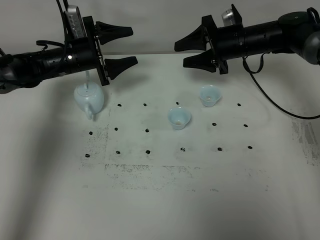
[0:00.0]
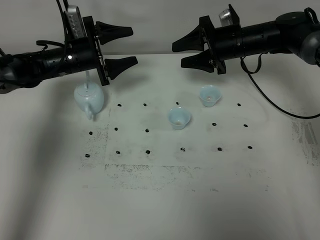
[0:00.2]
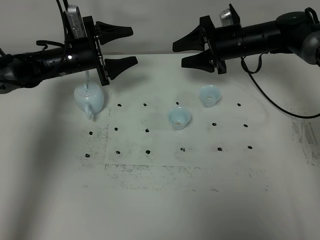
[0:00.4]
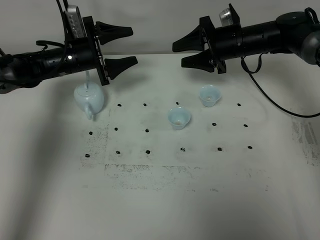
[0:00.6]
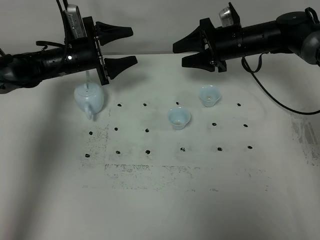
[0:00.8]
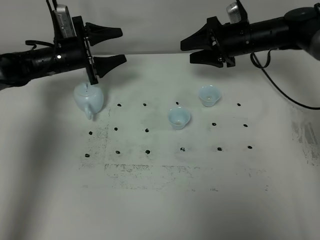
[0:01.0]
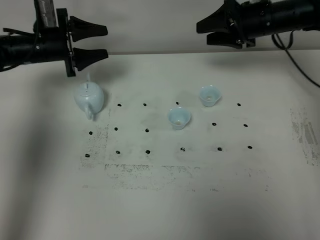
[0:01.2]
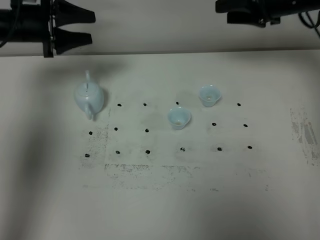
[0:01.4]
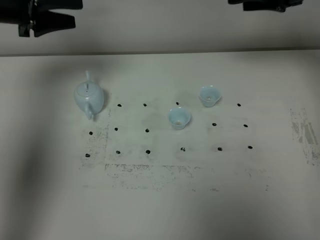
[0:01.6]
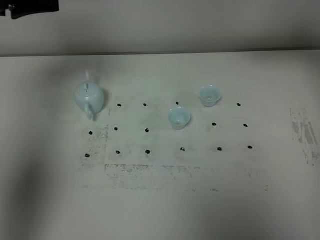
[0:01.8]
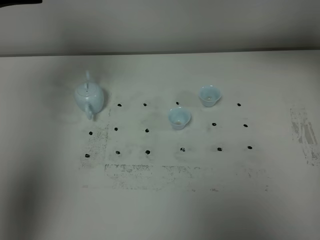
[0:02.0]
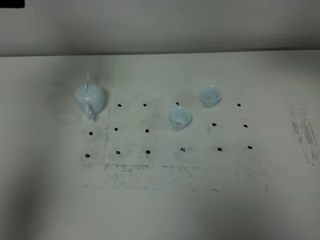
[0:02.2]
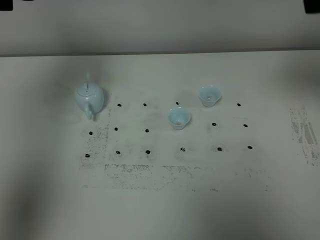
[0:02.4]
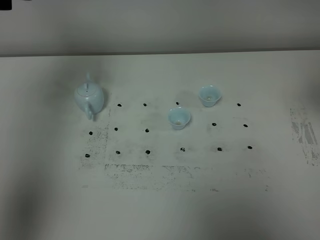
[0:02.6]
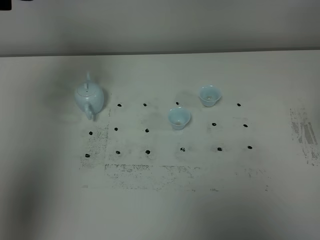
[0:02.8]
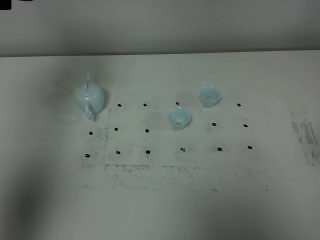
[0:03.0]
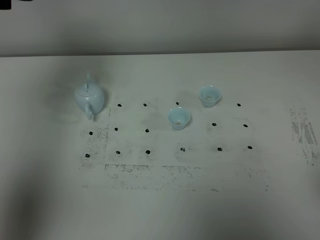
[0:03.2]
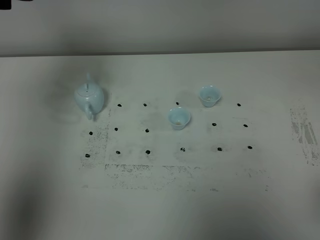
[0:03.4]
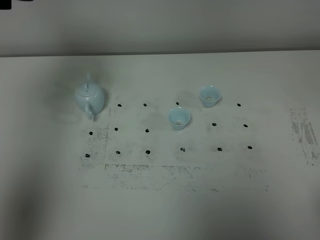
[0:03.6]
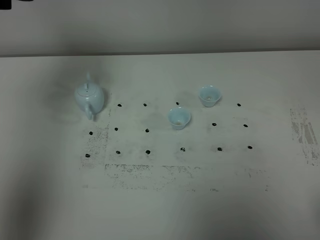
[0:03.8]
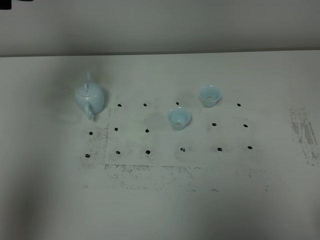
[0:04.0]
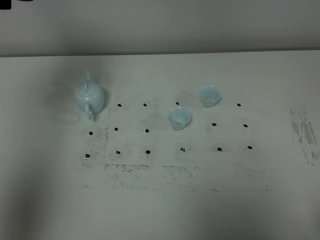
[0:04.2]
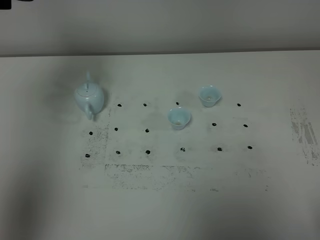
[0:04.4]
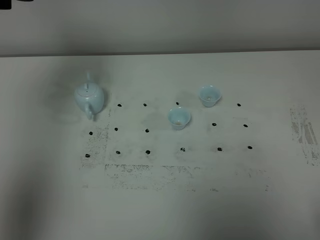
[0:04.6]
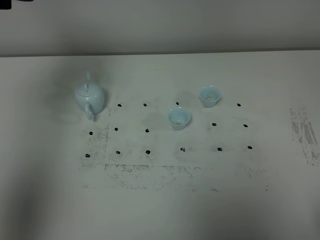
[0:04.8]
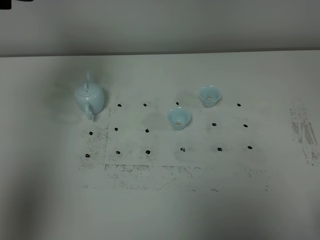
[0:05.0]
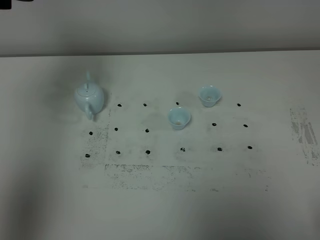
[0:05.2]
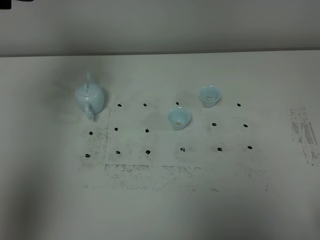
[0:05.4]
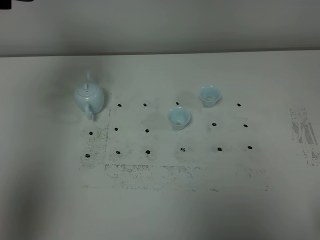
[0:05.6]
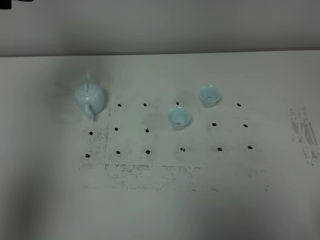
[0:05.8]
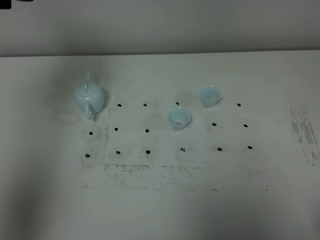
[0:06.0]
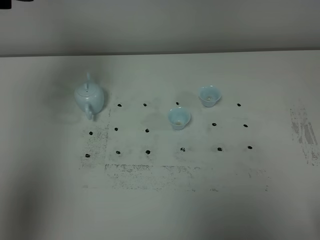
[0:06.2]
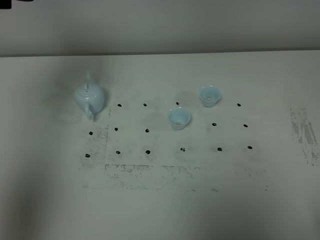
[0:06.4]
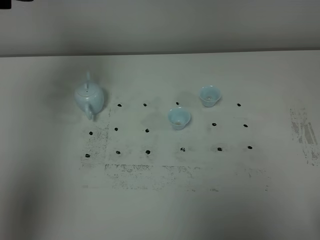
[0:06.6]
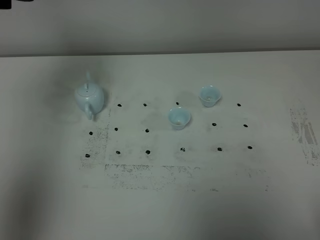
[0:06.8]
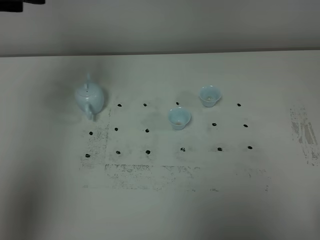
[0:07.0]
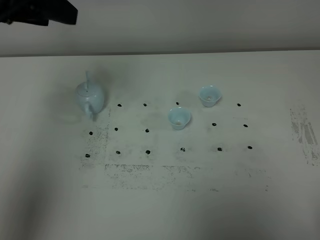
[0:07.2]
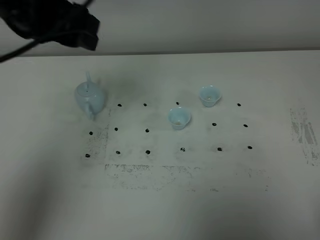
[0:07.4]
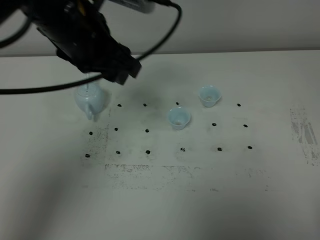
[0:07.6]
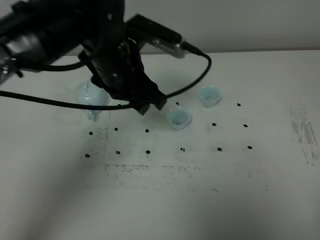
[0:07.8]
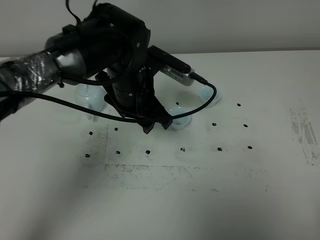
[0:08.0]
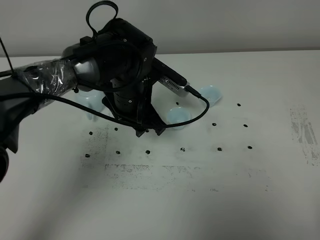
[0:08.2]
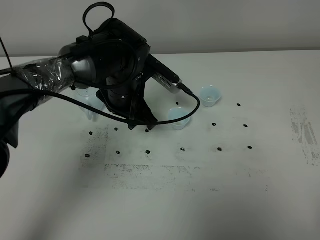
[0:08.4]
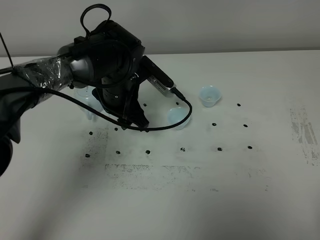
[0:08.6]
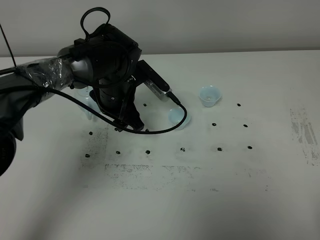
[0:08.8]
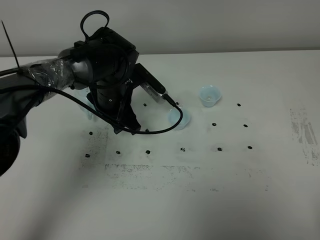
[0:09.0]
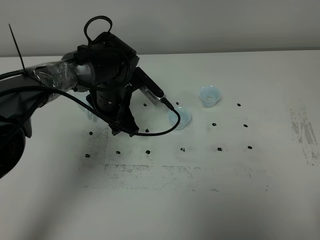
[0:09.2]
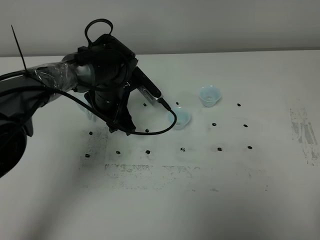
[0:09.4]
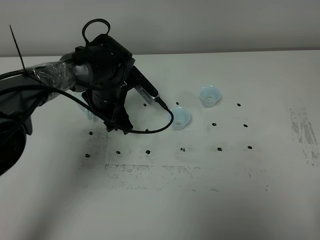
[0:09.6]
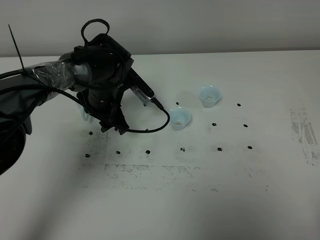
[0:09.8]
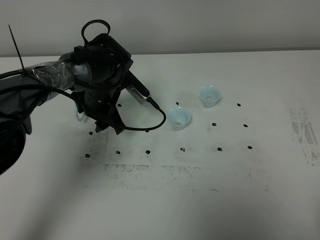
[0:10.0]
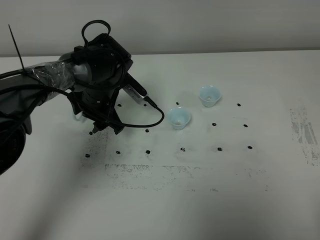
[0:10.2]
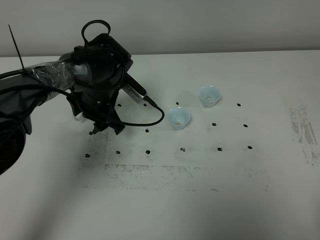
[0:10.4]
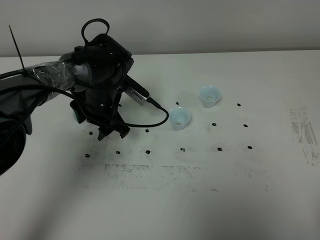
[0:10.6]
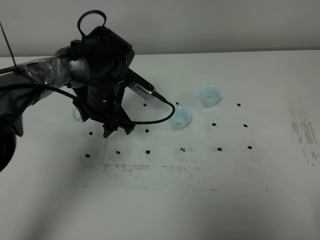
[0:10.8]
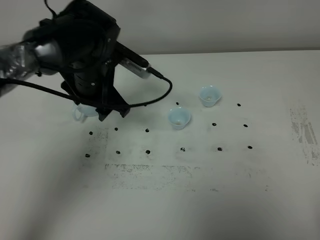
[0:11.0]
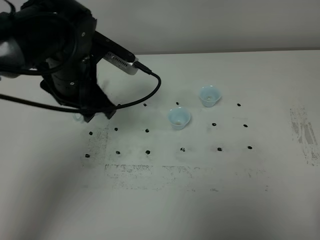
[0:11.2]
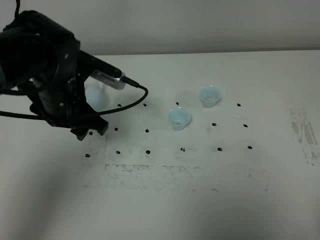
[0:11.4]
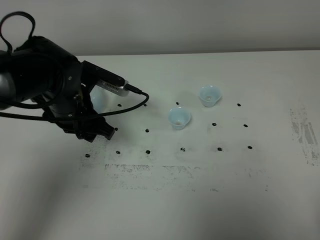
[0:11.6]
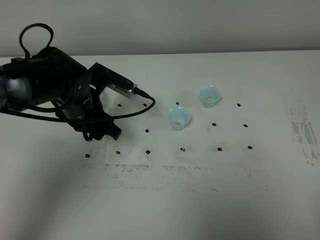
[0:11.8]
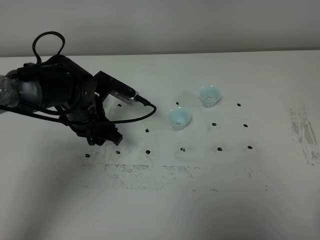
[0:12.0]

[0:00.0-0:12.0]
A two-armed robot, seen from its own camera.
Task of the whole recording: grasp the blue porcelain teapot and pour the tea into the two blue porcelain teacups one by one, put the blue porcelain teapot back in its original place.
0:00.0 to 0:01.6: The left gripper is displaced upward by roughly 20 cm; the right gripper travels upward and to the right by roughly 20 cm.
0:01.6 to 0:03.0: The right gripper goes roughly 35 cm backward. Meanwhile the left gripper goes about 15 cm upward and backward.
0:04.4 to 0:06.0: Neither gripper changes place.
0:06.0 to 0:07.6: The right gripper closes its fingers; the left gripper shifts roughly 20 cm to the right and downward.
0:07.6 to 0:09.0: The left gripper heads downward and forward, covering roughly 20 cm.
0:09.0 to 0:10.4: The grippers stay close to where they were, moving slightly.
0:10.4 to 0:12.0: The left gripper travels backward by roughly 5 cm, and travels upward and back again, approximately 10 cm each way.

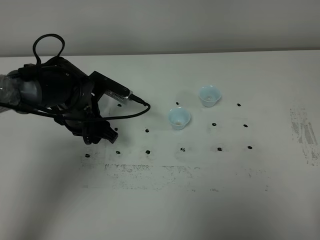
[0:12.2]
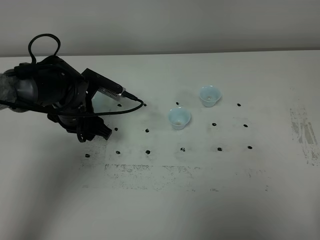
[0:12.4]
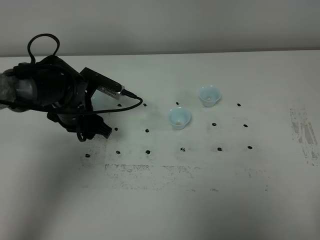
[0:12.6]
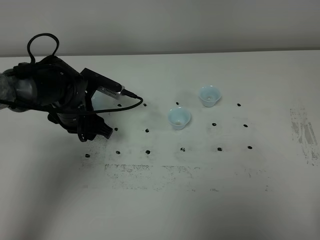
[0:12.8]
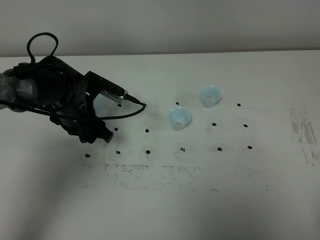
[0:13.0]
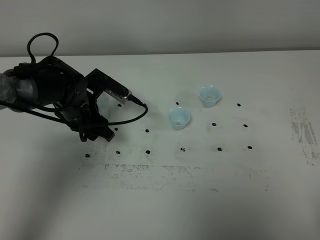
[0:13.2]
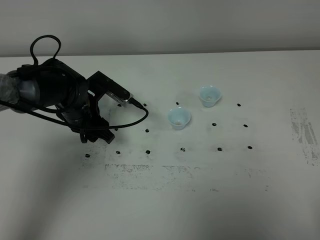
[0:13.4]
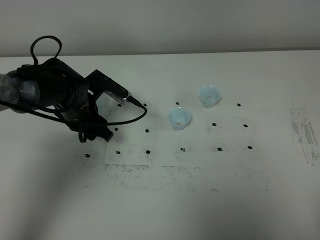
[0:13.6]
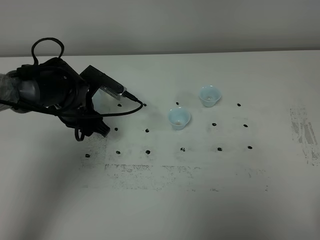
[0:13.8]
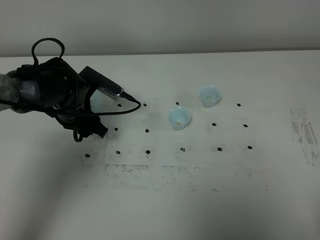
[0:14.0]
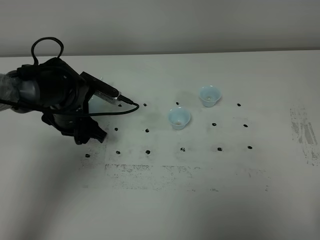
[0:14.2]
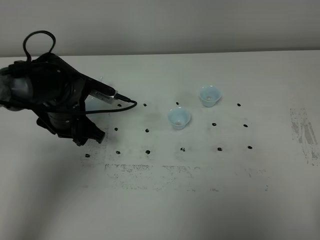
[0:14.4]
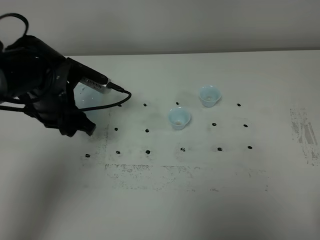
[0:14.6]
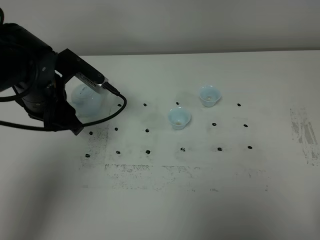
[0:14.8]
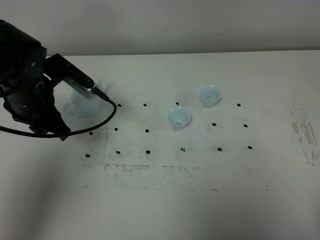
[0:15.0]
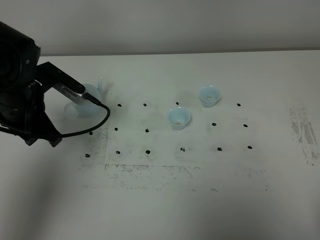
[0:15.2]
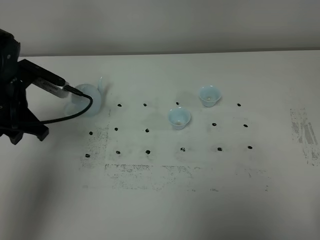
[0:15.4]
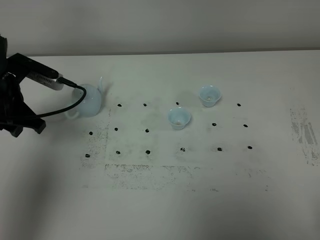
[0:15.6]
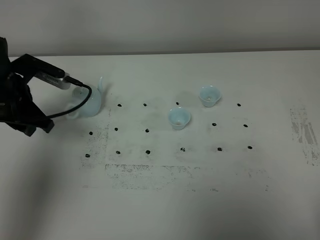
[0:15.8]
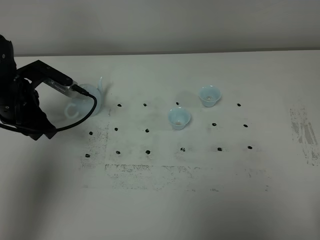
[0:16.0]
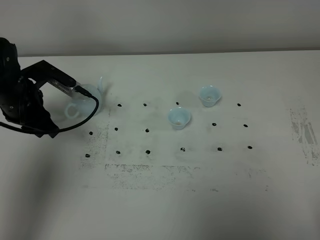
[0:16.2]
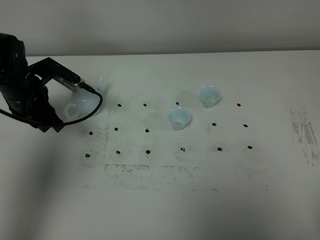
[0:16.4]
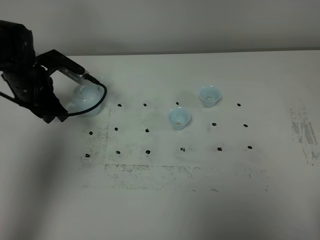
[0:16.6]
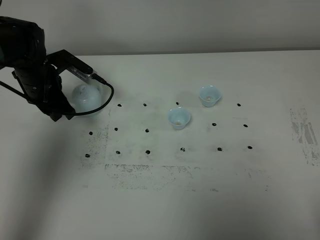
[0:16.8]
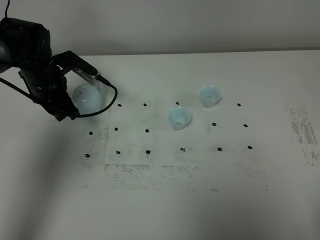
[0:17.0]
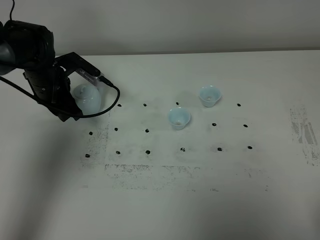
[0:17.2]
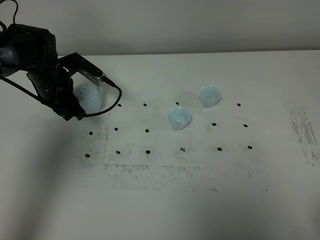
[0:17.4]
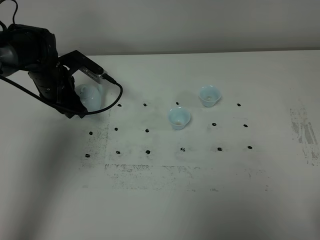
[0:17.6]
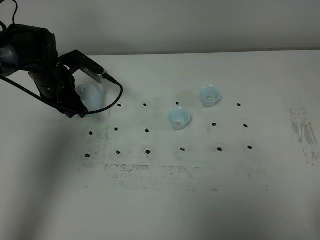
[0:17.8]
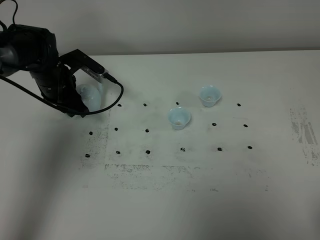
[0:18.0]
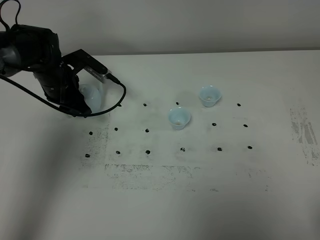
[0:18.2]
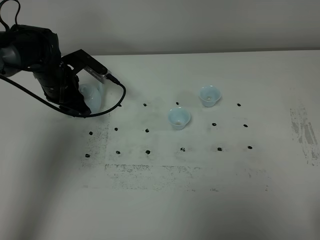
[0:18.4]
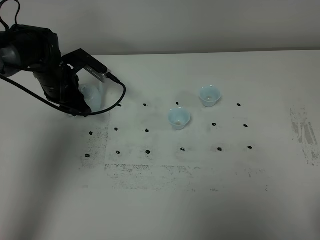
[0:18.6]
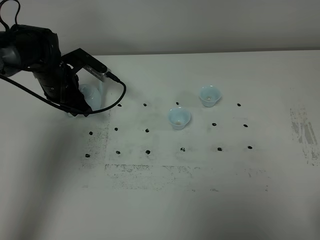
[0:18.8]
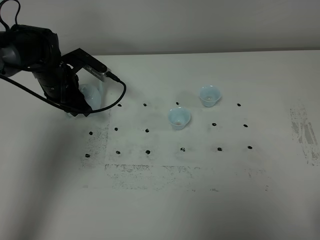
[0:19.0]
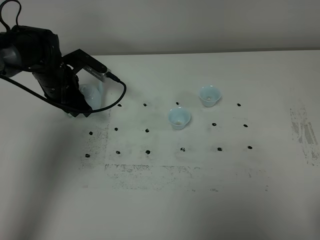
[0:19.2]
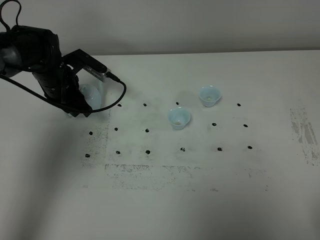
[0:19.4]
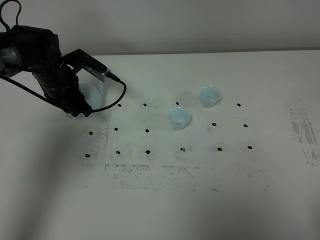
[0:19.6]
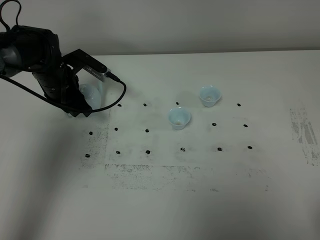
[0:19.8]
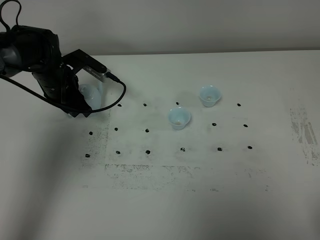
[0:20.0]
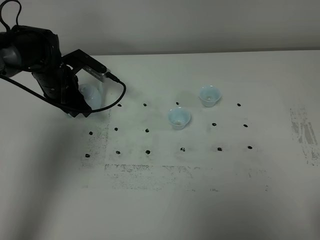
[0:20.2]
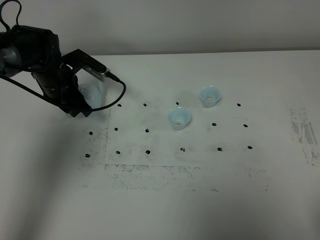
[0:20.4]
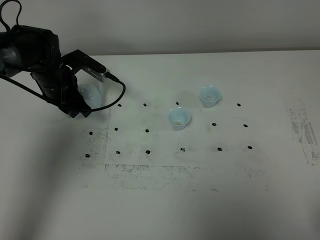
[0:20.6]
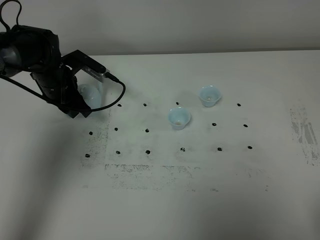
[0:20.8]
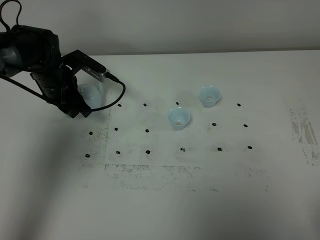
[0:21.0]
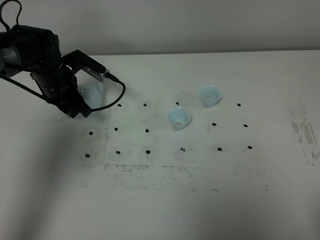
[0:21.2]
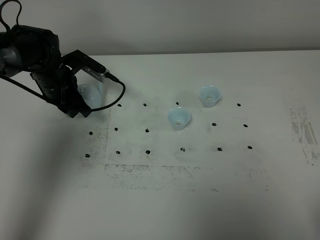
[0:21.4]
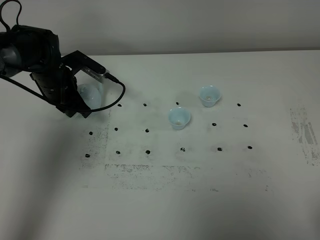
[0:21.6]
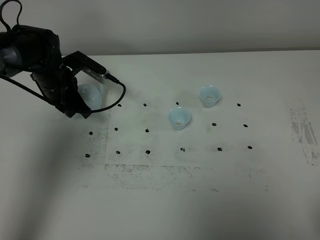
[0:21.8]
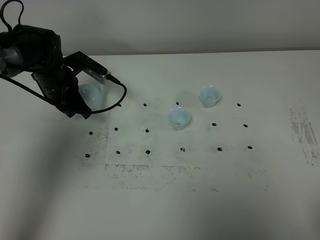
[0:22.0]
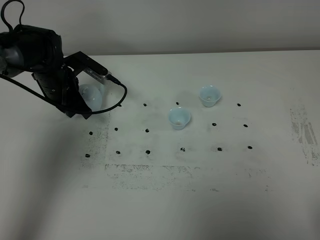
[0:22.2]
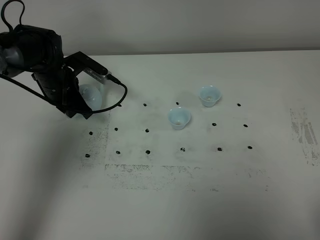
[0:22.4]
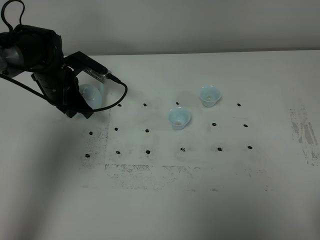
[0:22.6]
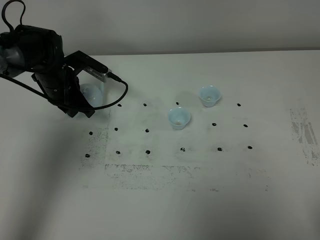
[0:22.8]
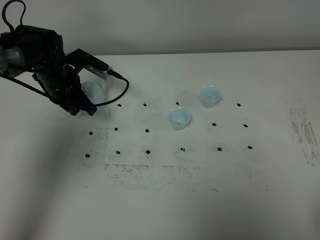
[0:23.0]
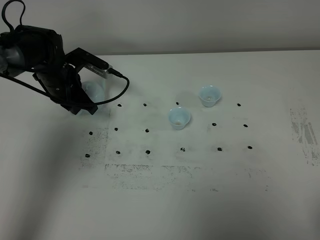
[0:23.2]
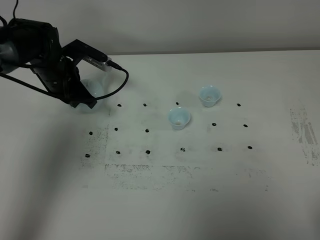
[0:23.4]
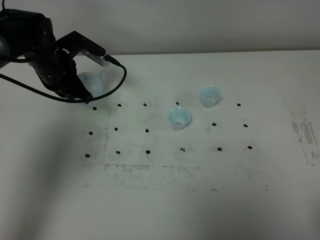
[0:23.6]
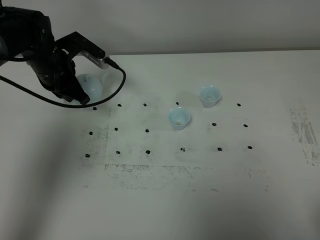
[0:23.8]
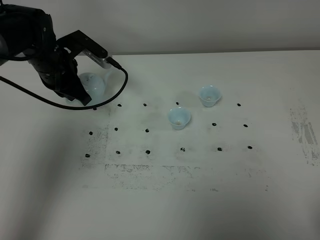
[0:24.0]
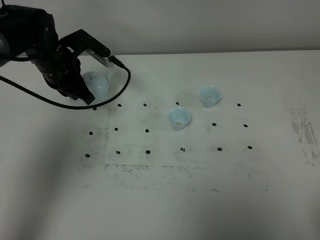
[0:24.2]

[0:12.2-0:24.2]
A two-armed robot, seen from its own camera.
Task of the whole recording: grasp the blue porcelain teapot and pour the tea into the two blue porcelain teacups one by one, put the blue porcelain teapot back in its original place.
Step, 0:12.2 to 0:23.6: Pick up the teapot with the left gripper.
0:12.2 to 0:13.8: The grippers stay close to where they were, moving slightly.
0:13.8 to 0:15.2: The left gripper goes roughly 10 cm upward, to the left and backward, and closes.
0:15.2 to 0:16.6: The left gripper goes some 10 cm forward.
0:16.6 to 0:18.2: The left gripper shifts by about 5 cm.
0:18.2 to 0:21.2: Neither gripper changes place.
0:21.2 to 0:22.6: The left gripper closes up.
0:22.6 to 0:24.2: The left gripper travels upward by approximately 5 cm.
